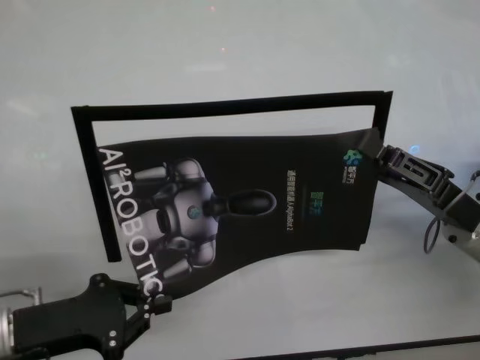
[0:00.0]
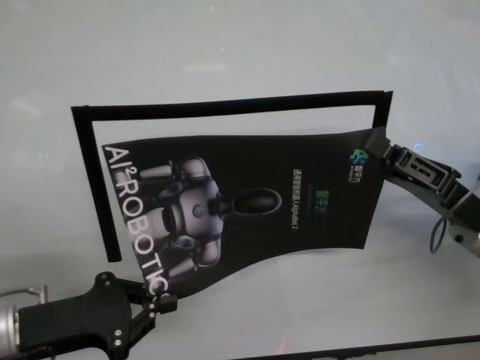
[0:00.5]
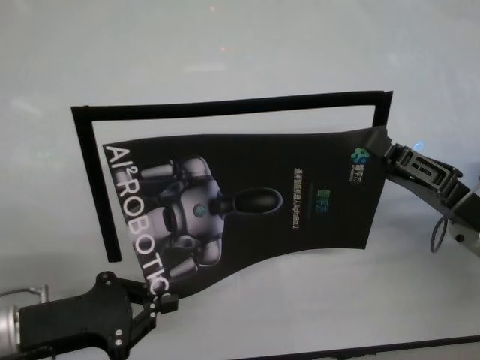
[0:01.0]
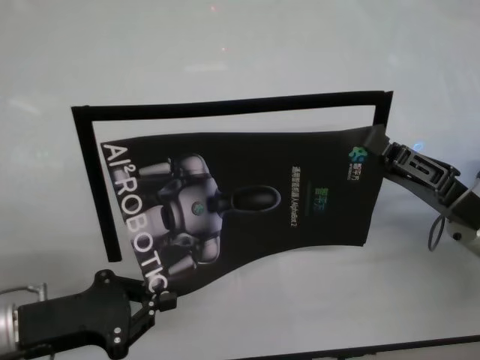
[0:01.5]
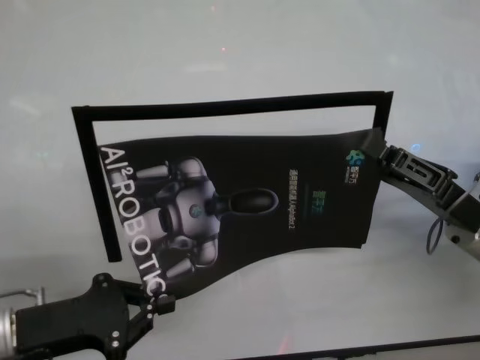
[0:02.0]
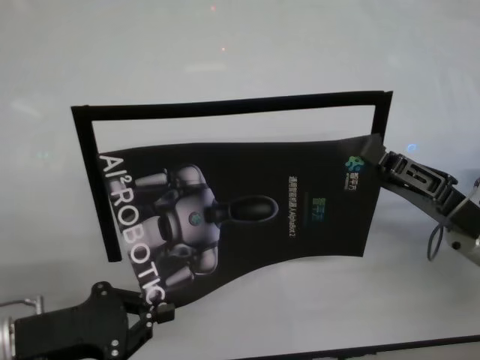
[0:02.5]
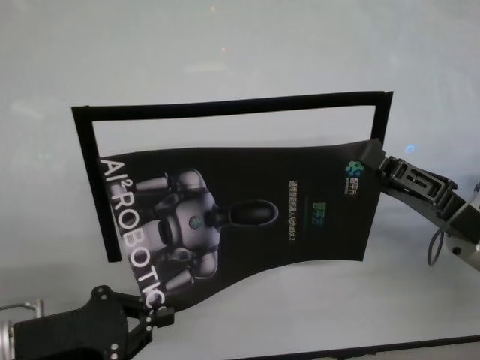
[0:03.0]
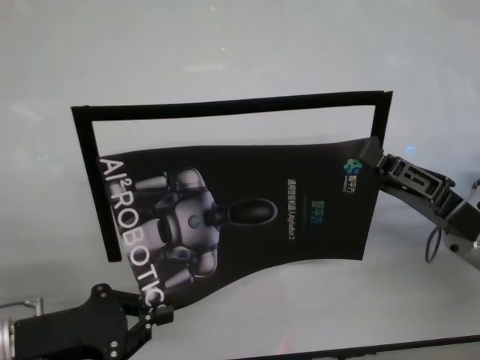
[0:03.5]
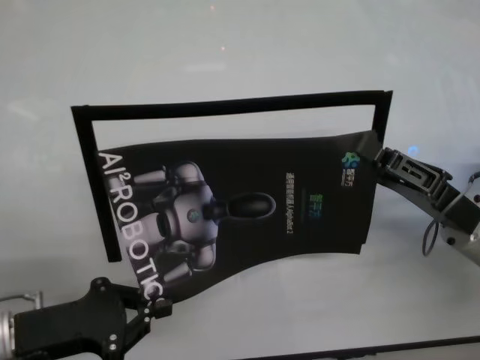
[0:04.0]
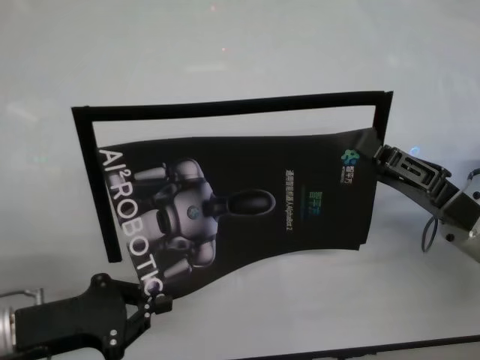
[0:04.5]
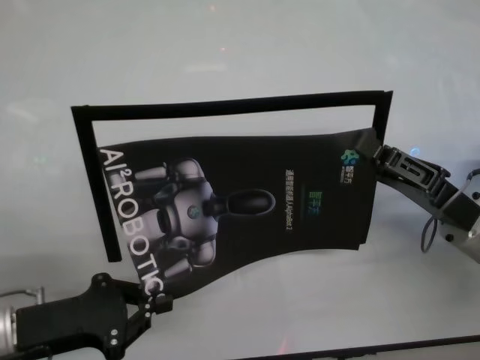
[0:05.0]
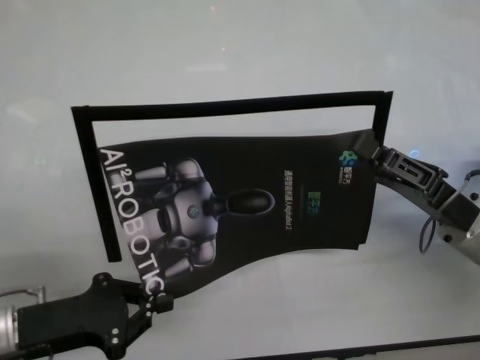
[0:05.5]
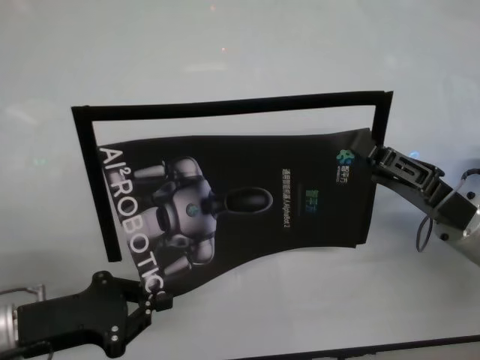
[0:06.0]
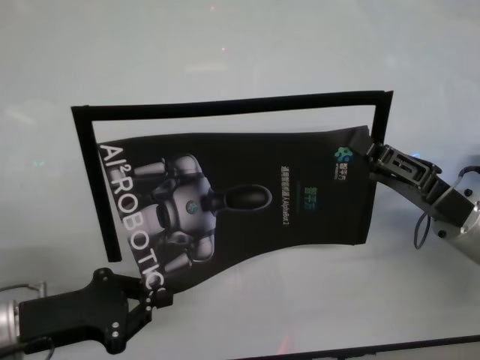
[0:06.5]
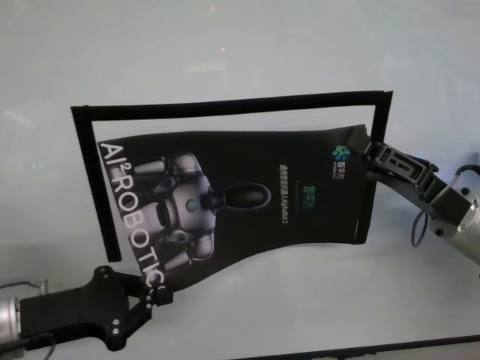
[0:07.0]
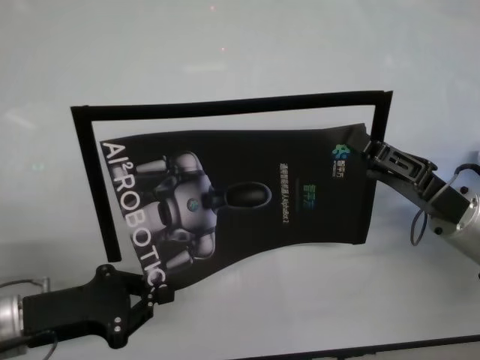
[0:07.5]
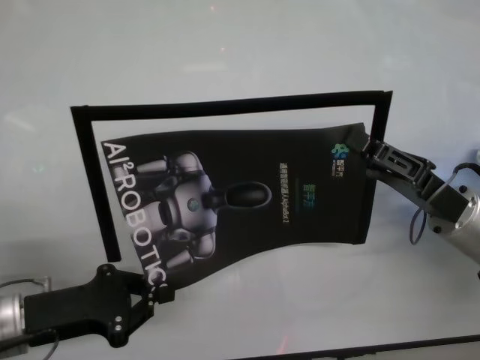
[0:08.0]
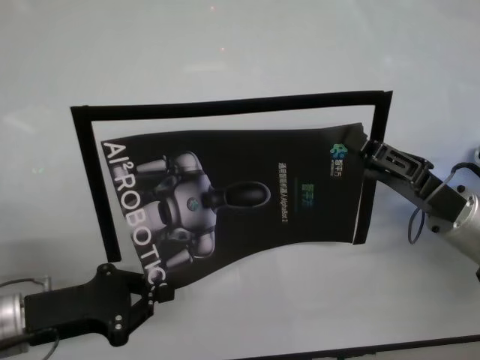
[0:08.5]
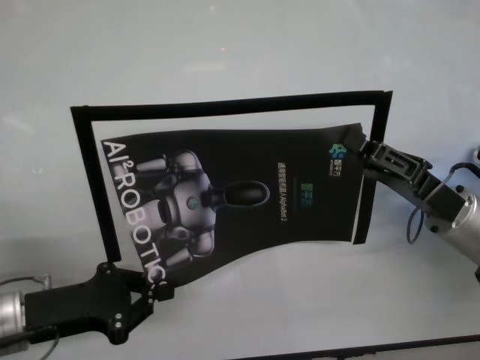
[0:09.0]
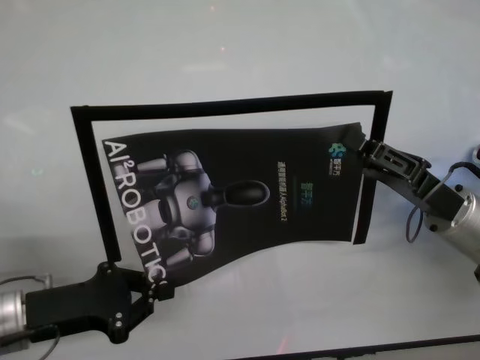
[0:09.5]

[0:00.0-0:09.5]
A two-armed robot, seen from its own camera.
Task of the whole recording: stick the poster on the table by hand.
Step, 0:00.0 to 0:08.0: Stick the advertisement in the top-right corner area with both grippers.
